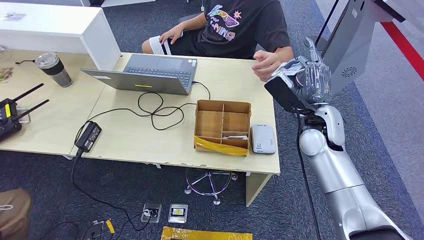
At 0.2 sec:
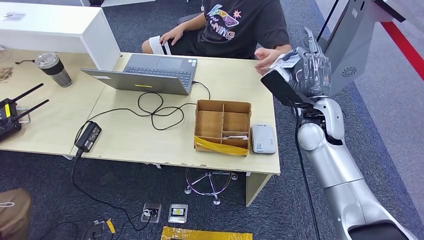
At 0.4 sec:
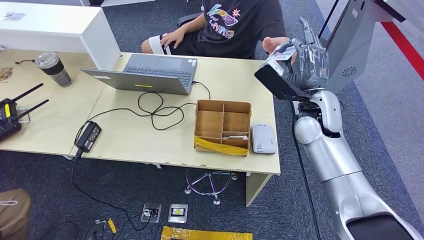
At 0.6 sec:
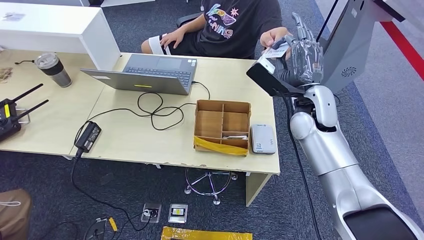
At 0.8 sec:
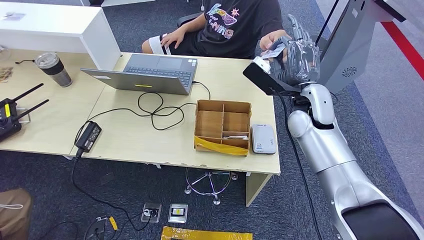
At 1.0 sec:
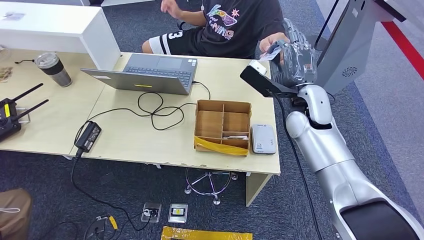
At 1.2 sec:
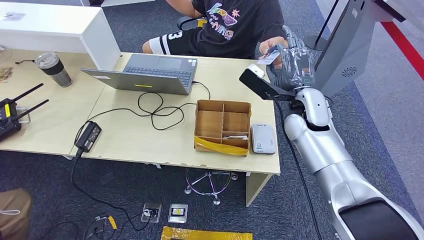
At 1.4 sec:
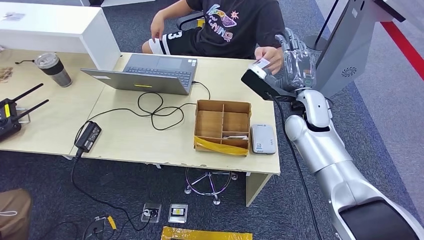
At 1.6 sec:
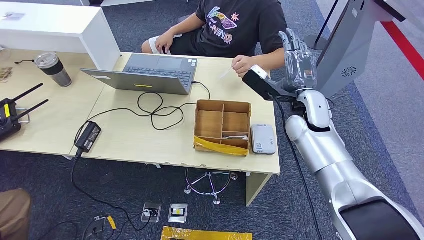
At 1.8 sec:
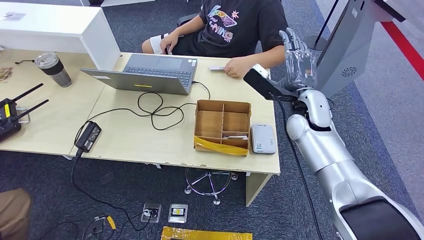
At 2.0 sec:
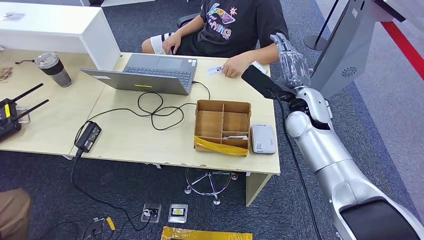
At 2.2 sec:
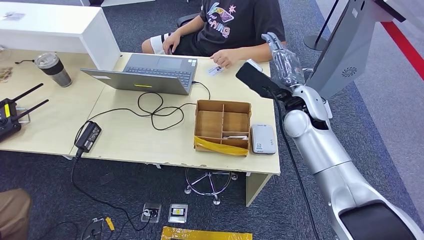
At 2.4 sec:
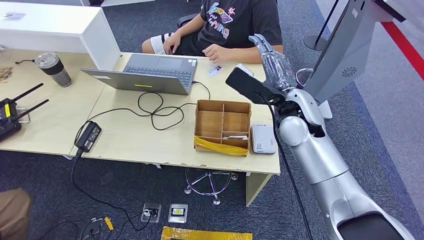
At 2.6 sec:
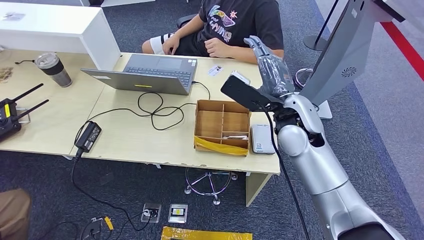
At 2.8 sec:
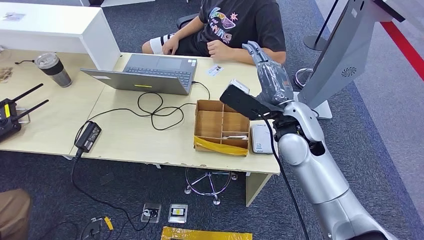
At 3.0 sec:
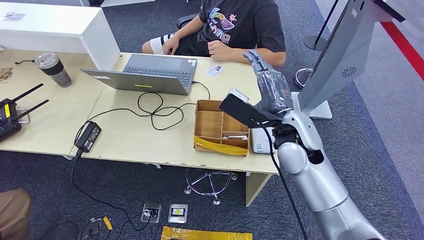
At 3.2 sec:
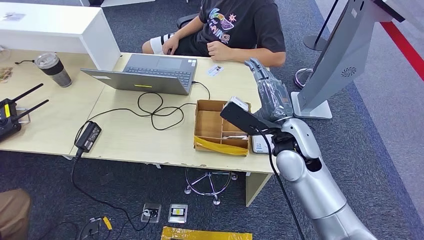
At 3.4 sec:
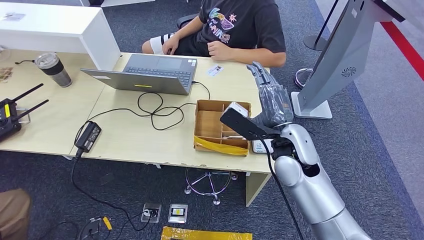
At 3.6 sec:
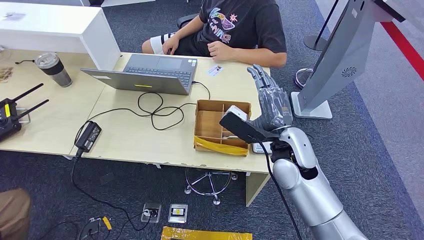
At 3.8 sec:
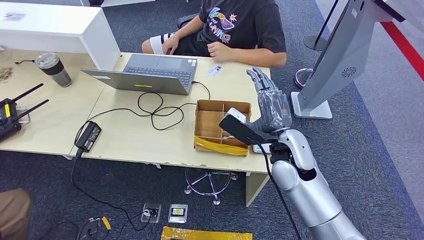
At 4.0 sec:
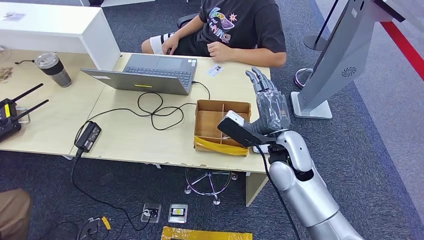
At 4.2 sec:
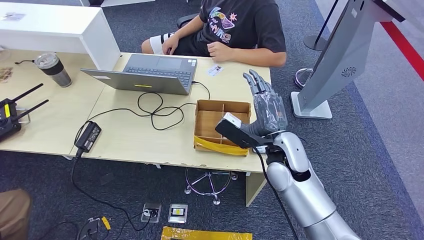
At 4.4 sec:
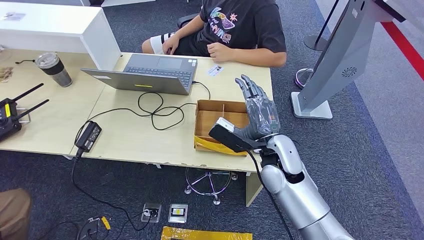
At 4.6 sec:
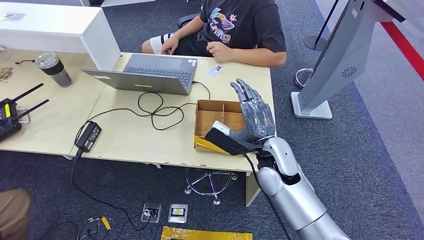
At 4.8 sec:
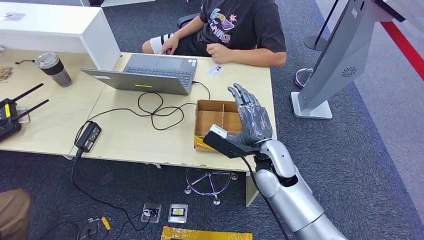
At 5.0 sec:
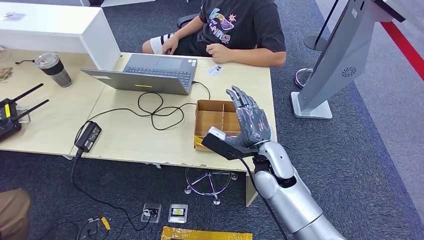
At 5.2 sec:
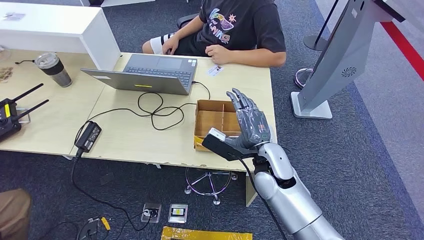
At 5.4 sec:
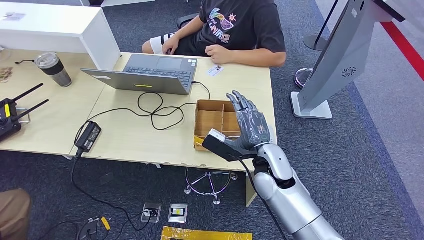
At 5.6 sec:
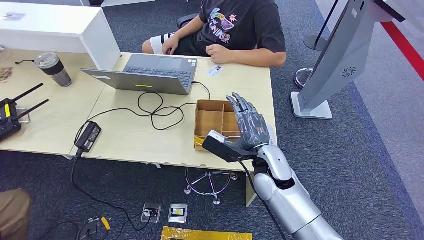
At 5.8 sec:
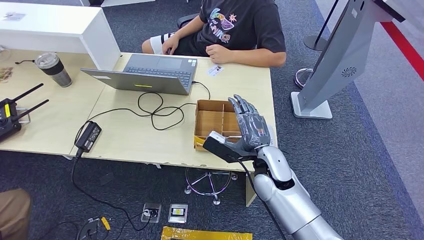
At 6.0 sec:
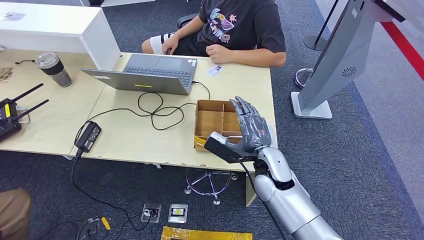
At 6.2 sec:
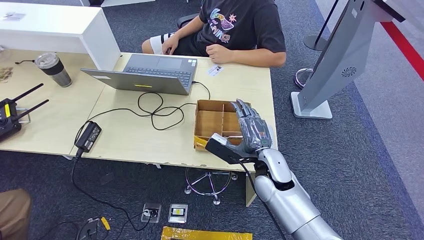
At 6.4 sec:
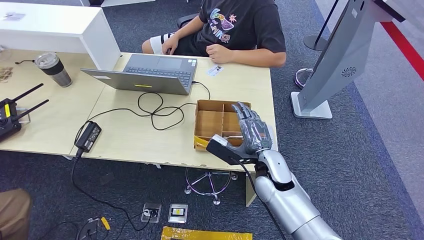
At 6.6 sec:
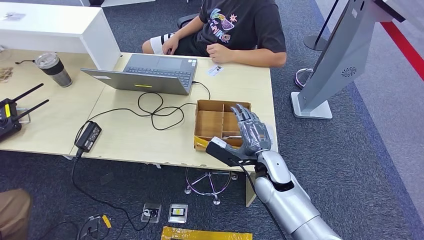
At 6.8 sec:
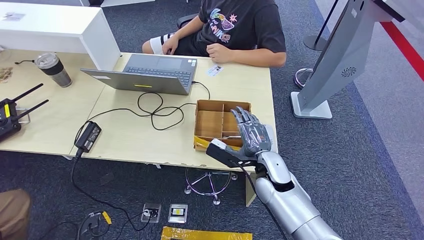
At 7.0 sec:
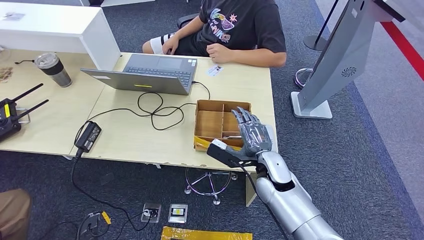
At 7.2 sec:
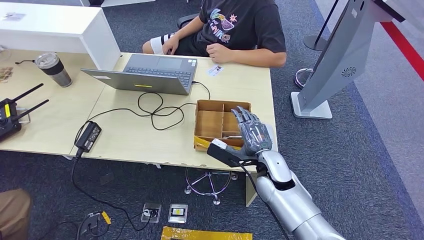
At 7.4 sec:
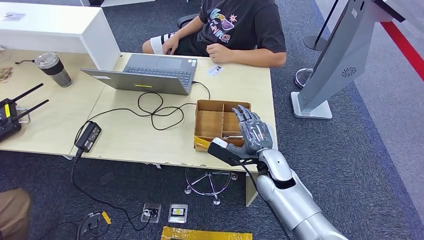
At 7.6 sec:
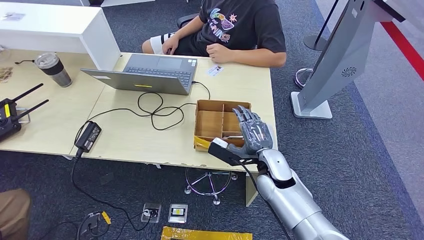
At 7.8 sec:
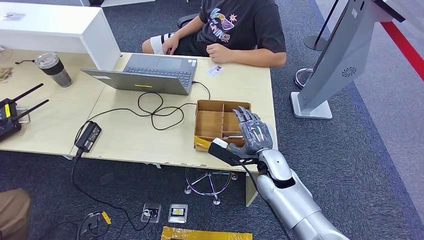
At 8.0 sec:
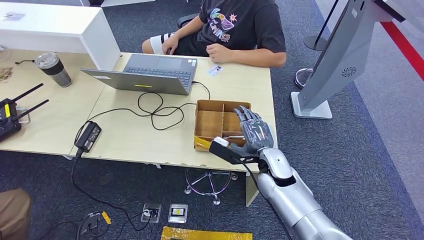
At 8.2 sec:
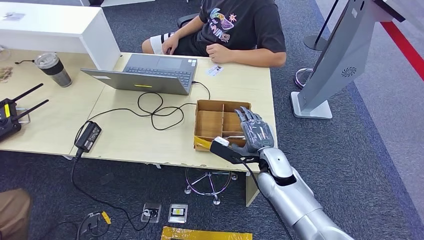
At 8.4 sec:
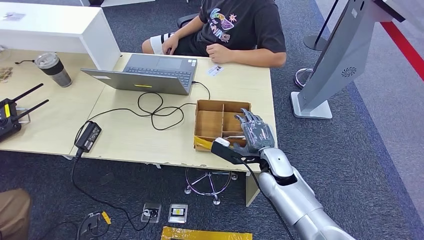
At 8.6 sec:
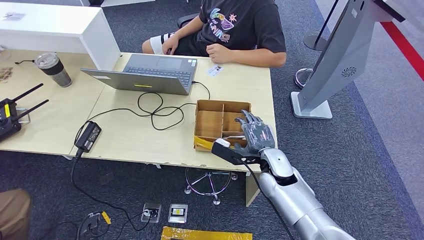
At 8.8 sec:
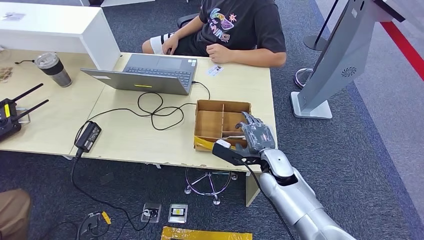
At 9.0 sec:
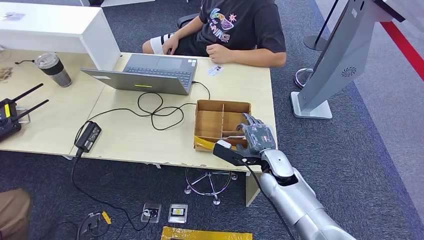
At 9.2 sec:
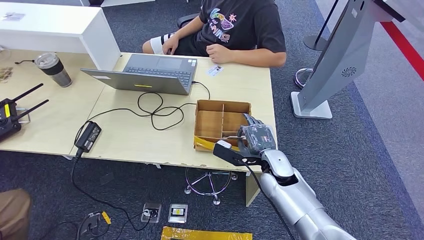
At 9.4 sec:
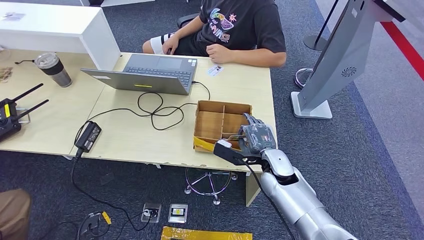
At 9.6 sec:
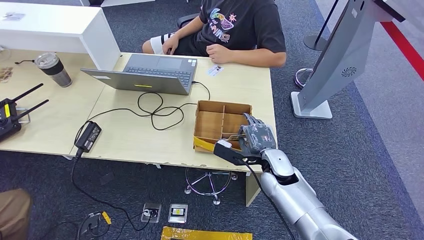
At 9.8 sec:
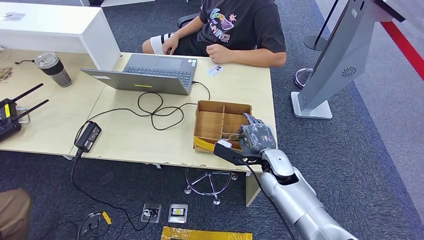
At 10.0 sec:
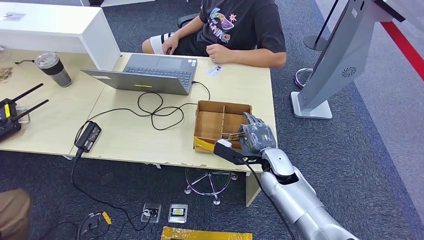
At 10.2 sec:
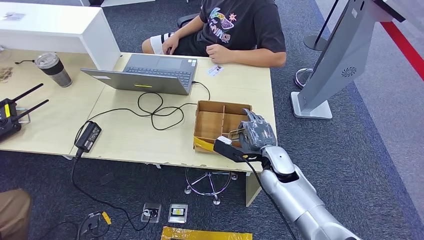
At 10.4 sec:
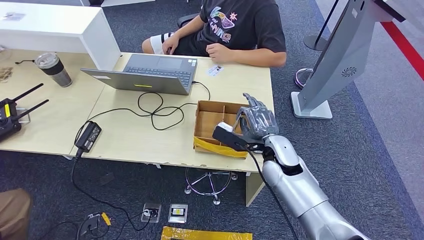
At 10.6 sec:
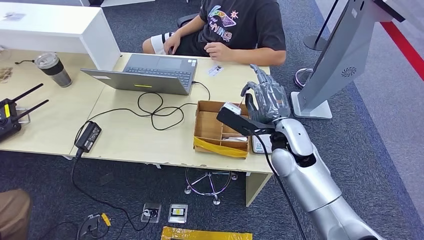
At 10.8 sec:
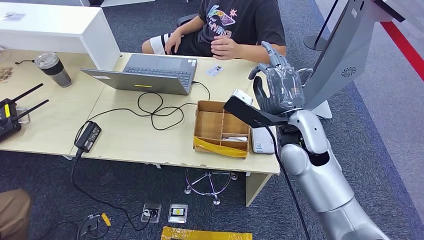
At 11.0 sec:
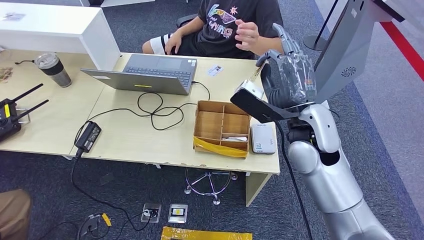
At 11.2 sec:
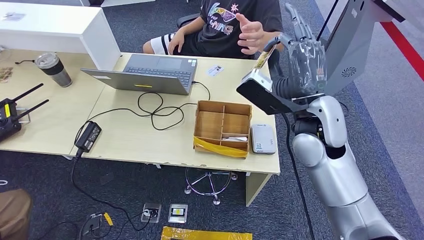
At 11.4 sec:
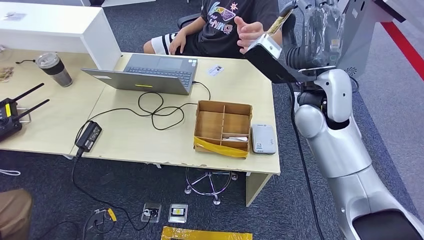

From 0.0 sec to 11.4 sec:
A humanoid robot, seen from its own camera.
Step, from 0.0 sec to 2.0 sec: Hand the ID card to the person.
Step, from 2.2 sec to 10.8 sec: Pick up the room key from the key card box.
From 0.0 sec to 1.4 sec: The hands stay close to where they were, moving slightly.
From 1.4 sec to 2.8 sec: The right hand moves approximately 5 cm.
From 2.8 sec to 4.2 sec: The right hand heads downward, covering approximately 10 cm.
From 4.2 sec to 5.6 sec: The right hand changes place by approximately 5 cm.
From 5.6 sec to 8.6 sec: The hands stay close to where they were, moving slightly.
From 8.6 sec to 10.0 sec: Neither hand changes place.

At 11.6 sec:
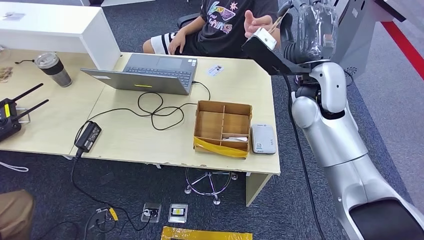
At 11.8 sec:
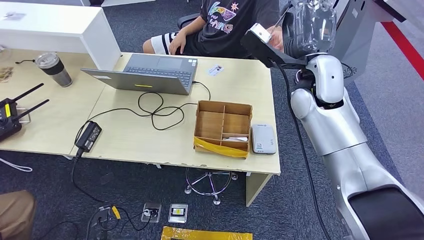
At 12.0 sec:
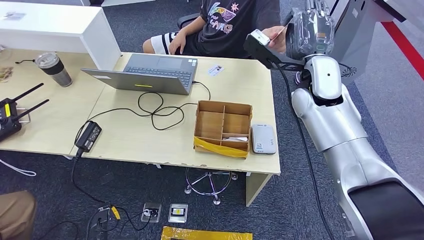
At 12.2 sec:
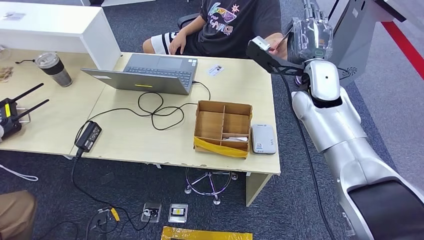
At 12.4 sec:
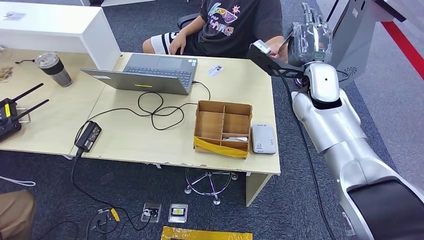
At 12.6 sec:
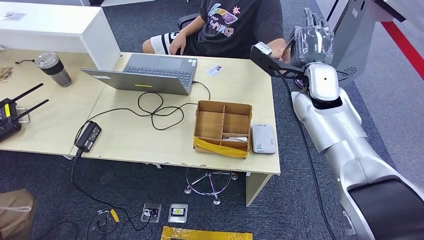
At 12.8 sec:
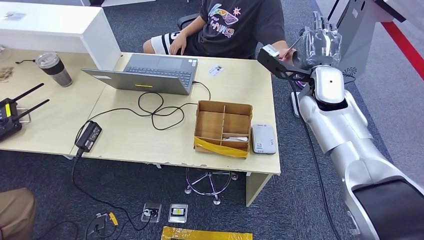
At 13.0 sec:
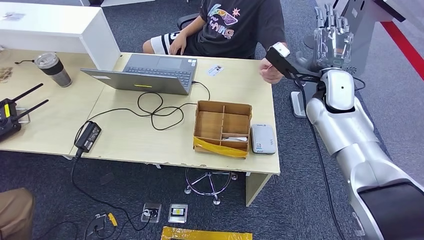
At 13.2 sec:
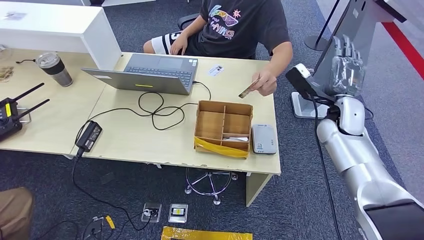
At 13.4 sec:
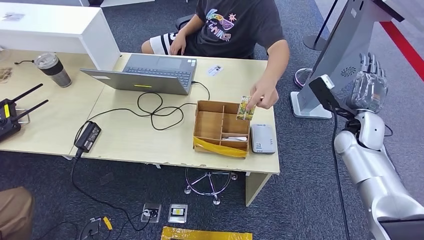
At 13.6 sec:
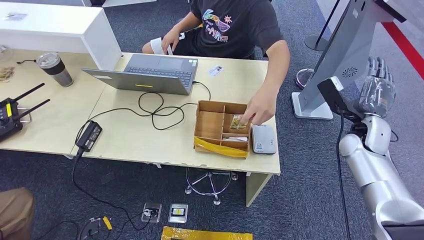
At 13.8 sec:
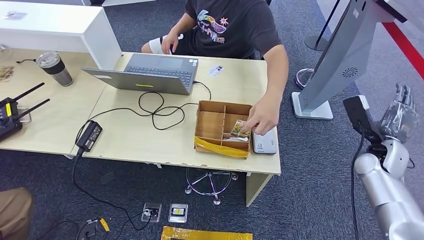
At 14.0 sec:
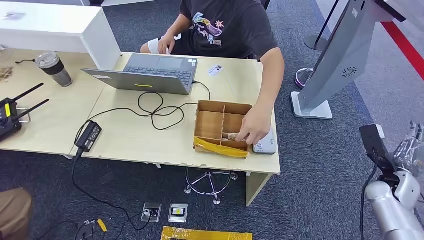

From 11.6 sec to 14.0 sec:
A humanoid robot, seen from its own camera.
Step, from 11.6 sec to 13.8 sec: Hand the room key to the person.
From 11.6 sec to 12.8 sec: The right hand moves some 5 cm.
From 12.8 sec to 14.0 sec: The right hand moves to the right, downward and backward, approximately 35 cm.
